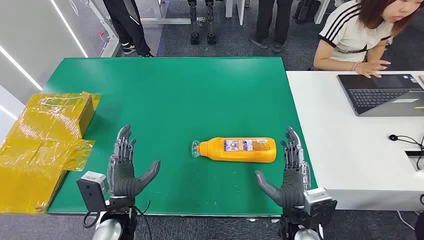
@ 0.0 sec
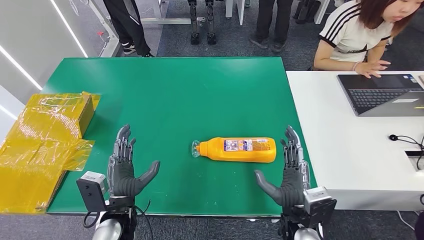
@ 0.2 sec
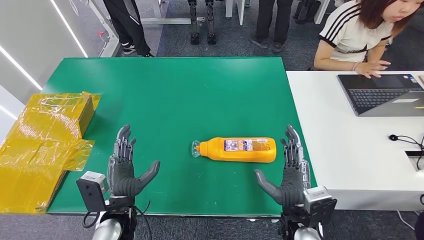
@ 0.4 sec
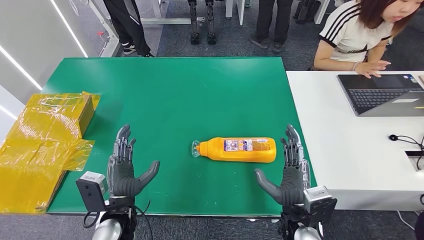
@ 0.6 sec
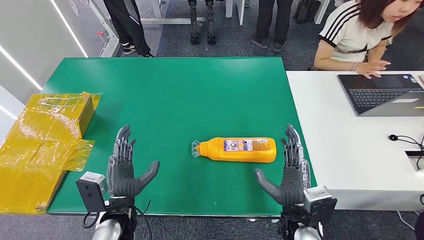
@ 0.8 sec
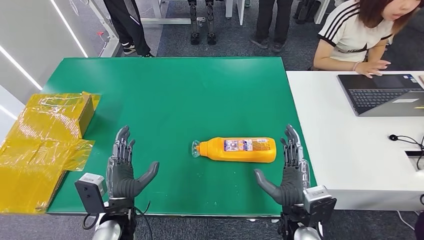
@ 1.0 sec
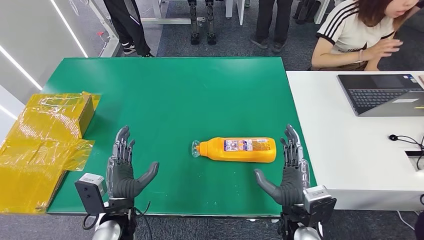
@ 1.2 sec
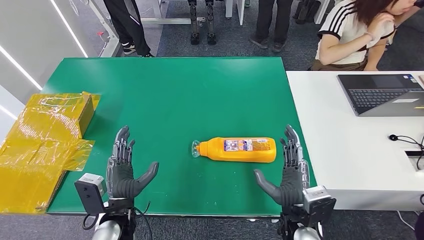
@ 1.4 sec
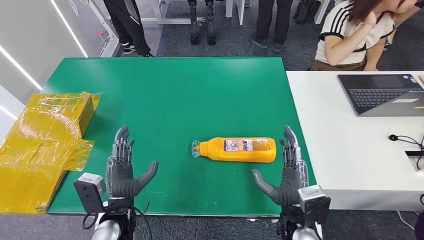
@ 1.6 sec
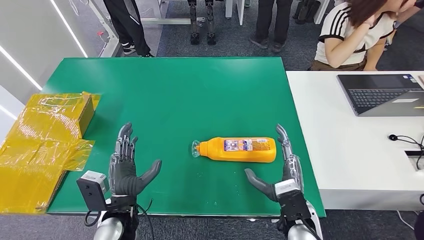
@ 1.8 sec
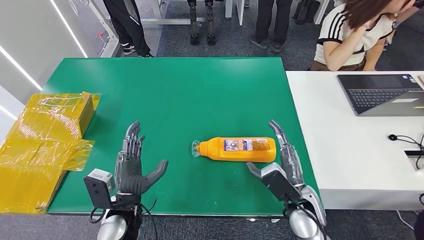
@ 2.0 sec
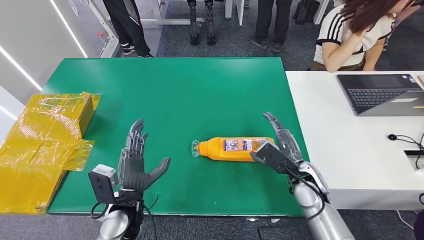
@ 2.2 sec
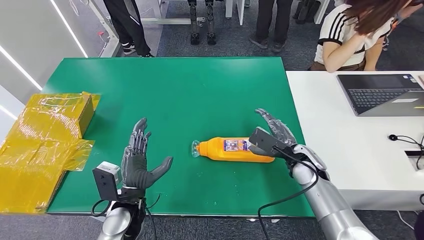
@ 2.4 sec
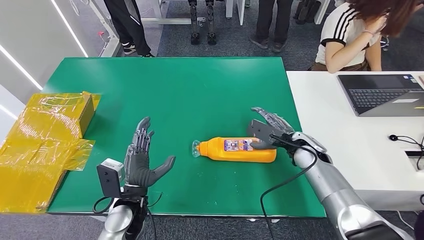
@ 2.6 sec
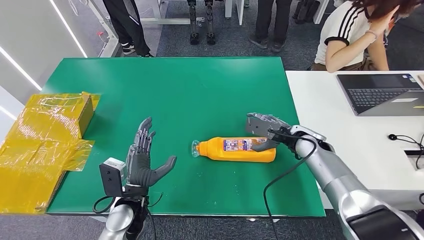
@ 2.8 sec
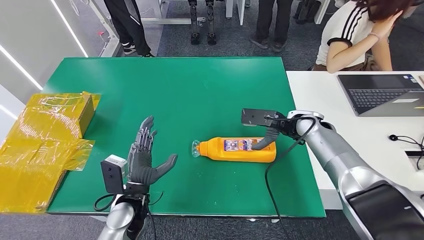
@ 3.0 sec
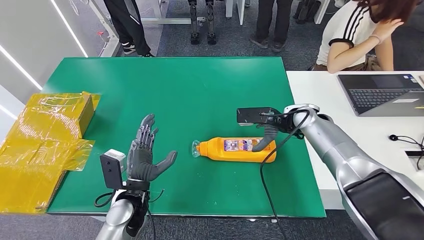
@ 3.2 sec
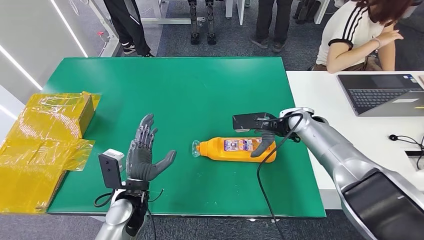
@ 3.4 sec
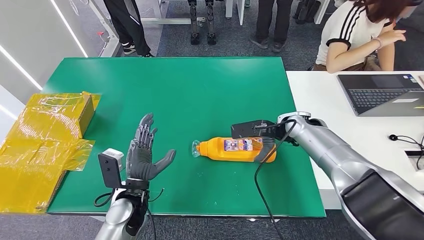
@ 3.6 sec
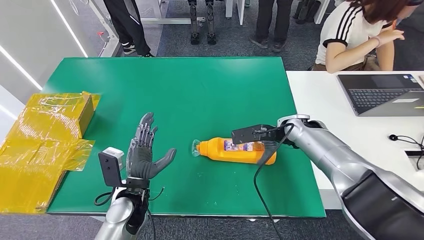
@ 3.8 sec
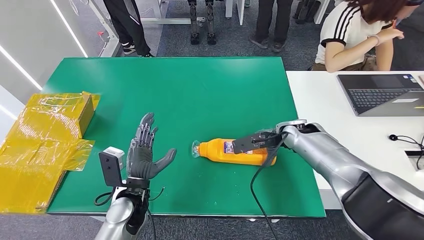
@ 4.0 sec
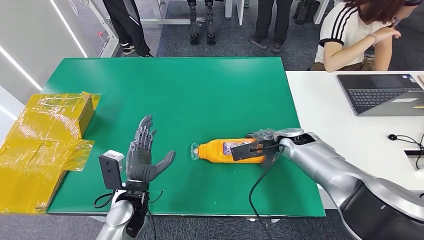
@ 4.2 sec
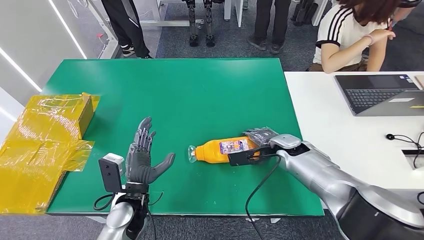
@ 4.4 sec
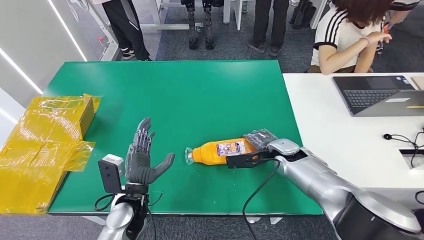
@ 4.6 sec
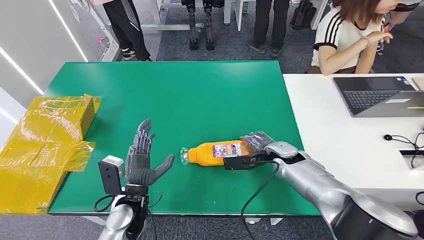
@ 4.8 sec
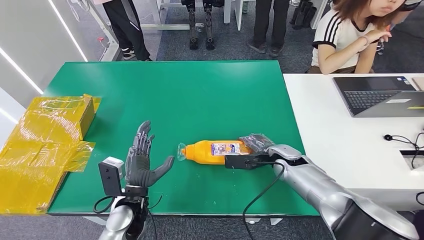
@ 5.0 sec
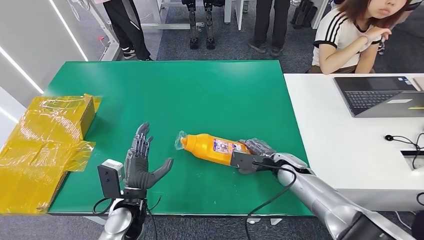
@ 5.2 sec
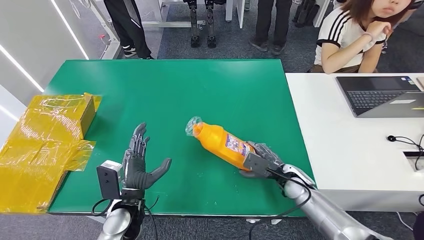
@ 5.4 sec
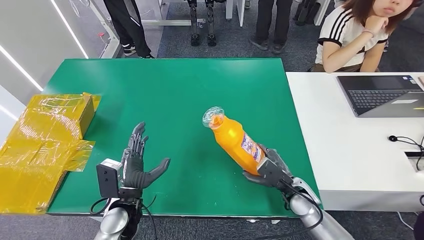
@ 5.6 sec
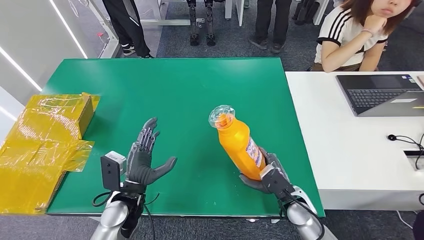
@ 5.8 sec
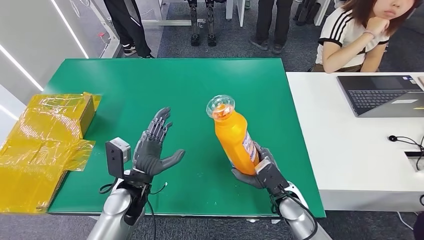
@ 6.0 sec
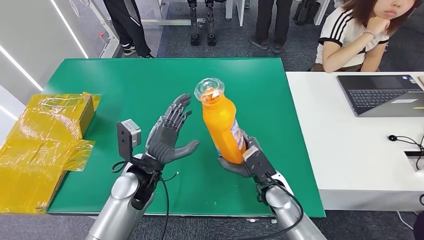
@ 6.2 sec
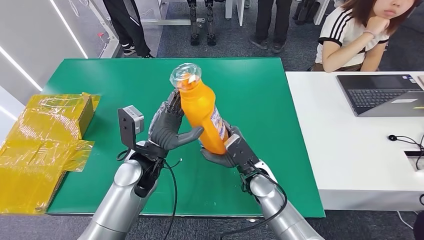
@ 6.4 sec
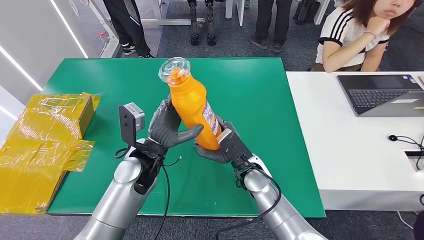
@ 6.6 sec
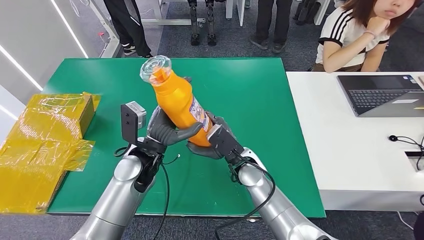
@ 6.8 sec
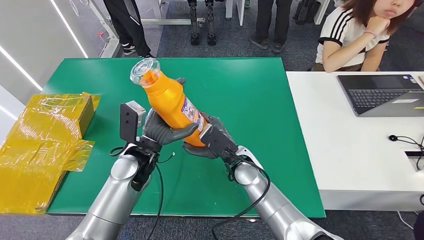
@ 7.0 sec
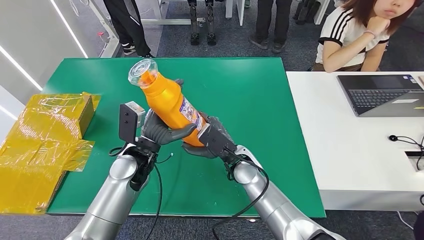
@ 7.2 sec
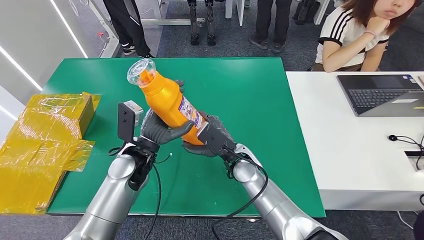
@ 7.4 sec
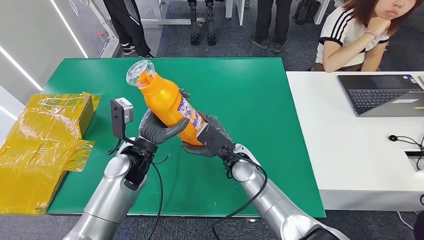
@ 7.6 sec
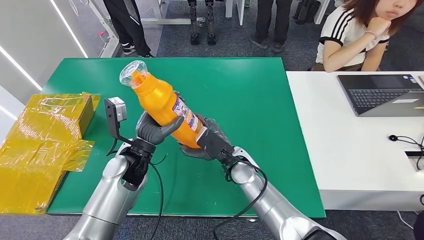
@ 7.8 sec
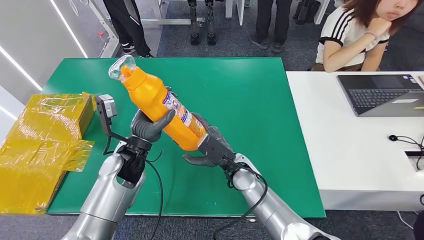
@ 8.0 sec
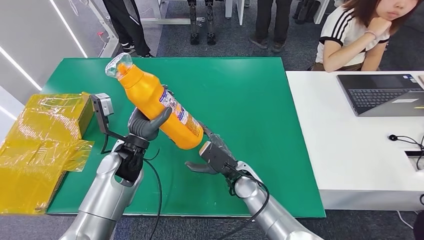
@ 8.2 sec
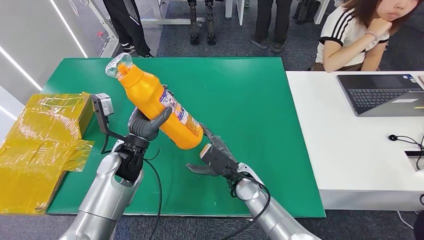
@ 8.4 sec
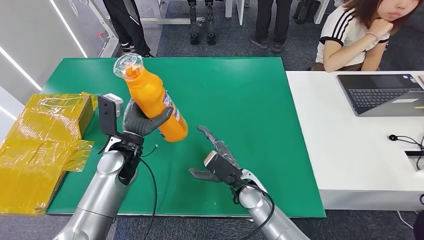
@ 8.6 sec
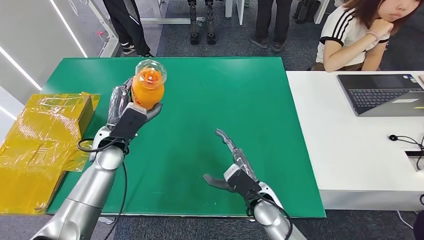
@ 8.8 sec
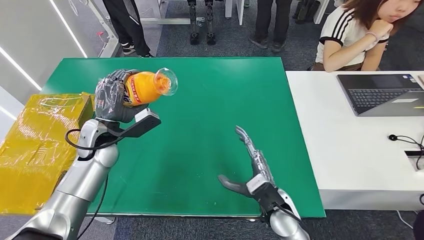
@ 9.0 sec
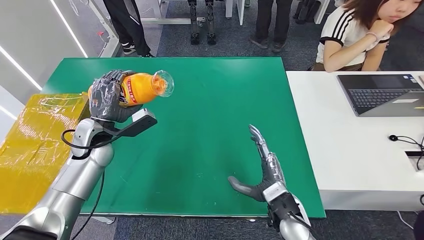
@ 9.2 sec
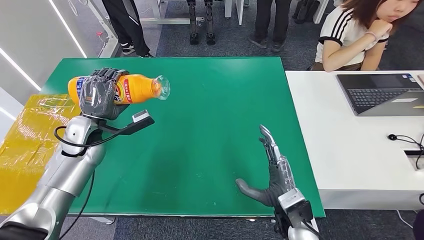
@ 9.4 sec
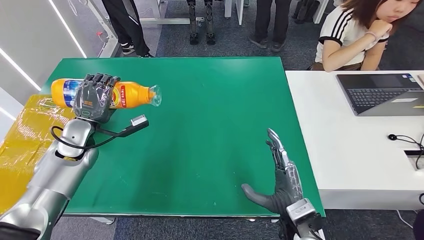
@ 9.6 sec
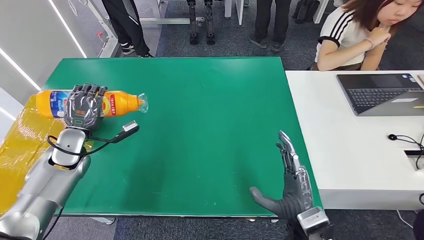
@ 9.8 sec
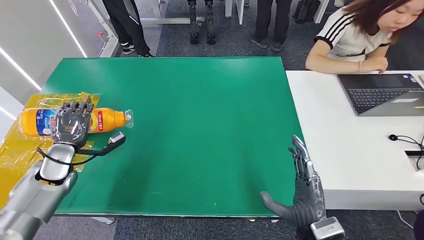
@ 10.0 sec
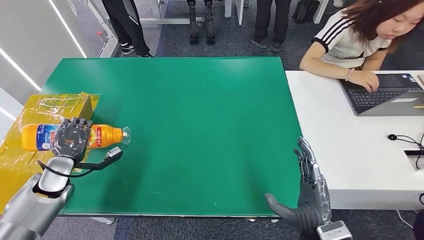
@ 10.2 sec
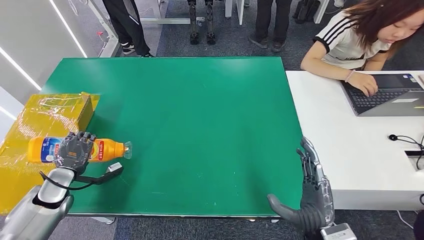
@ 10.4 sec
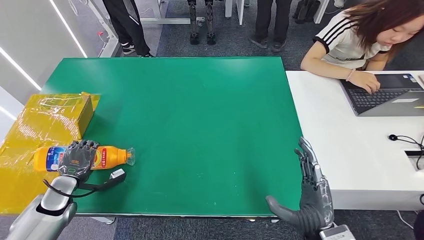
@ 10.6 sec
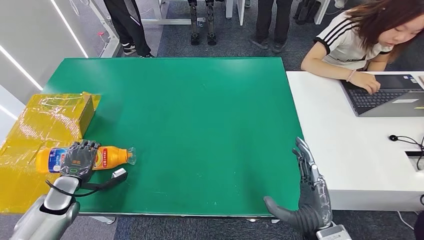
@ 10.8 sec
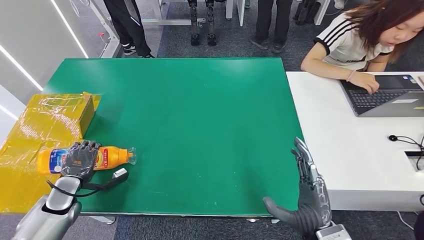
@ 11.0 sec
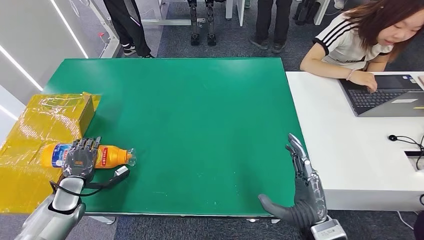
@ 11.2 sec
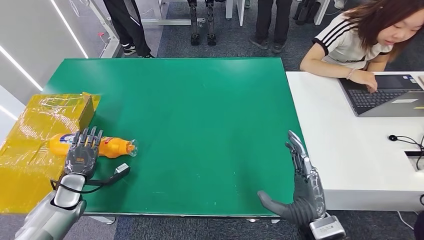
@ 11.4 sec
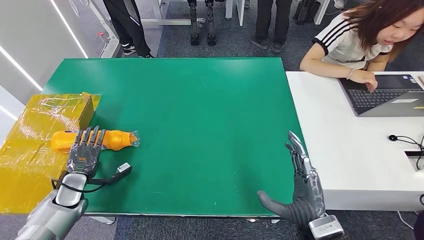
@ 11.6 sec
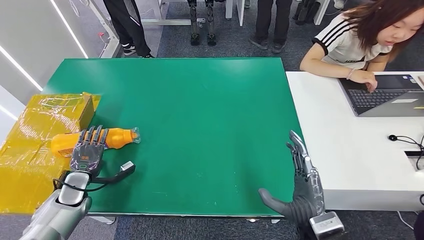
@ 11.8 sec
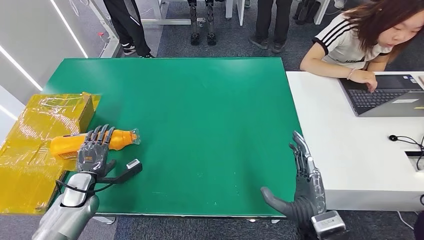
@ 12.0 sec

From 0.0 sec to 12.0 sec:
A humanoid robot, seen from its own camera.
Step, from 0.0 sec to 5.8 sec: Pick up the bottle from the table.
Step, from 6.2 sec to 12.0 sec: Turn the bottle to the front side.
From 1.6 sec to 3.0 sec: The right hand heads forward, covering some 25 cm.
From 6.0 sec to 7.6 sec: The left hand is displaced forward by about 5 cm; the right hand heads to the left, upward and forward, covering approximately 15 cm.
From 7.6 sec to 9.0 sec: The left hand goes roughly 10 cm to the left; the right hand is displaced backward and to the right by approximately 15 cm.
From 10.4 sec to 12.0 sec: The left hand is displaced to the right by approximately 5 cm.
